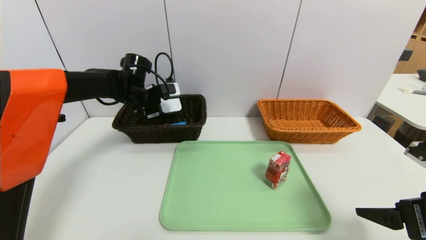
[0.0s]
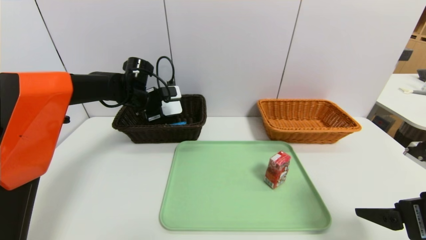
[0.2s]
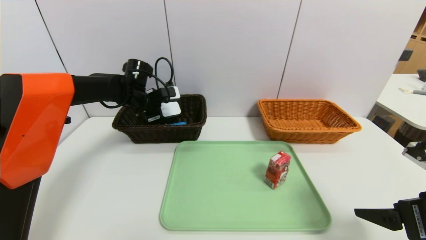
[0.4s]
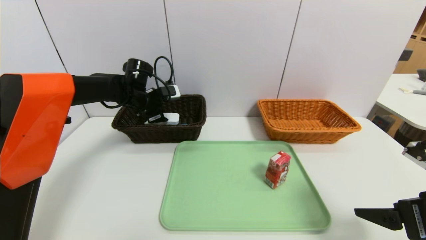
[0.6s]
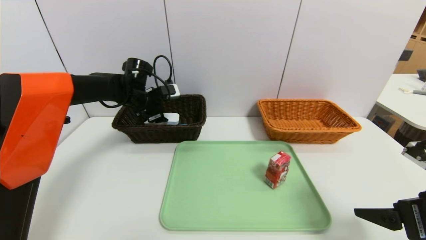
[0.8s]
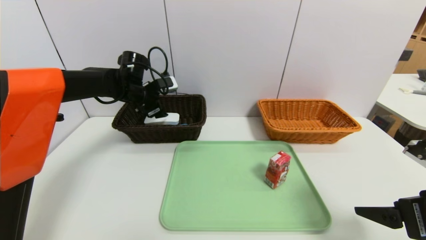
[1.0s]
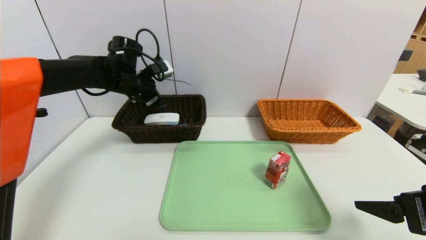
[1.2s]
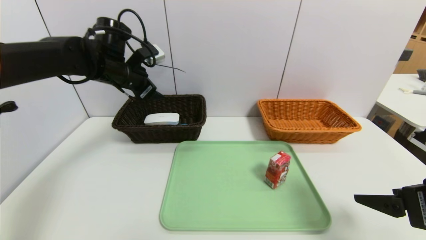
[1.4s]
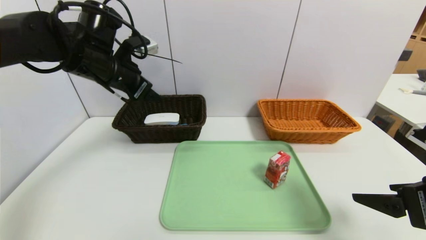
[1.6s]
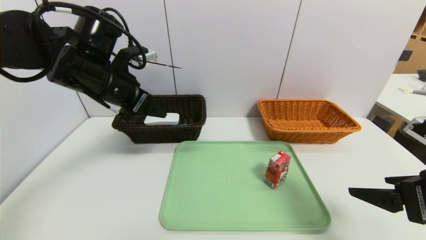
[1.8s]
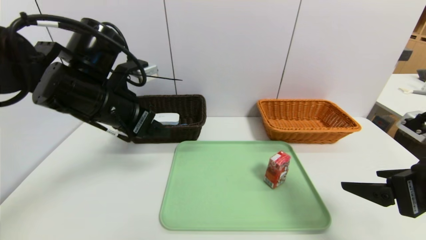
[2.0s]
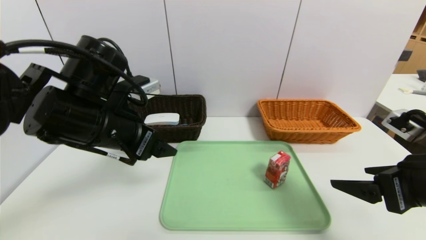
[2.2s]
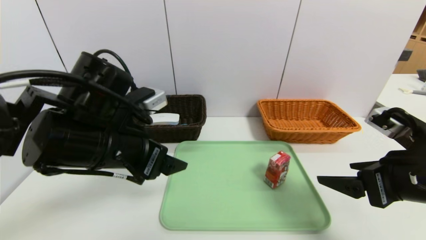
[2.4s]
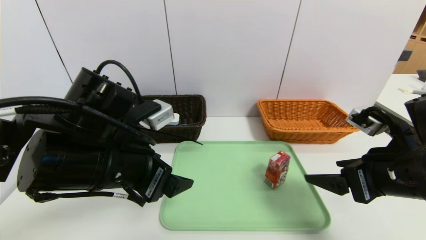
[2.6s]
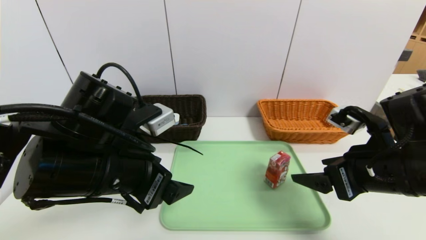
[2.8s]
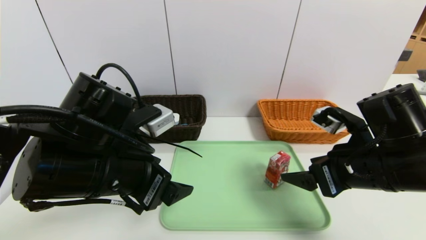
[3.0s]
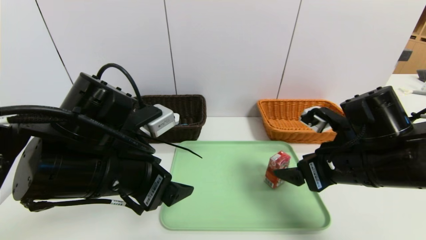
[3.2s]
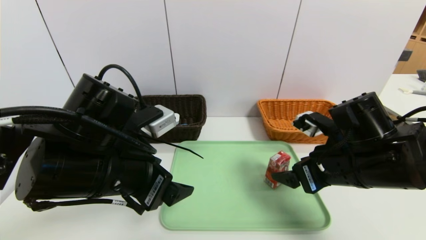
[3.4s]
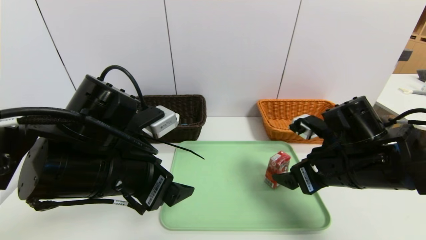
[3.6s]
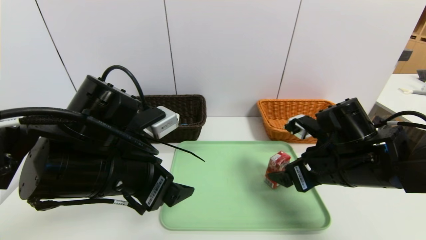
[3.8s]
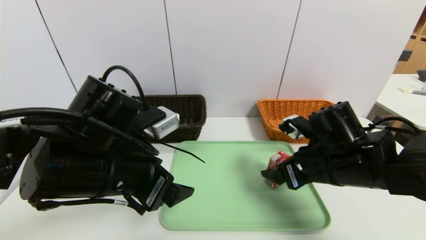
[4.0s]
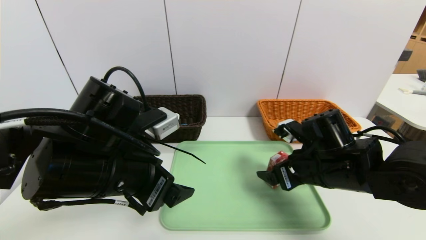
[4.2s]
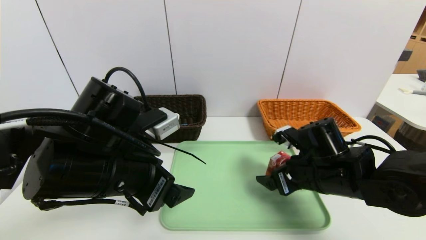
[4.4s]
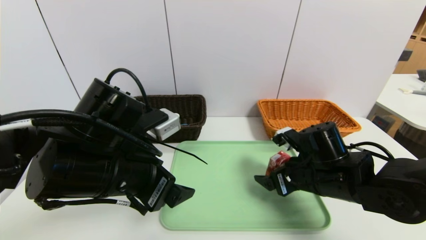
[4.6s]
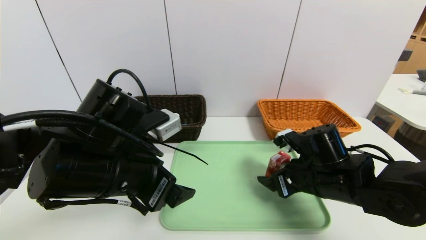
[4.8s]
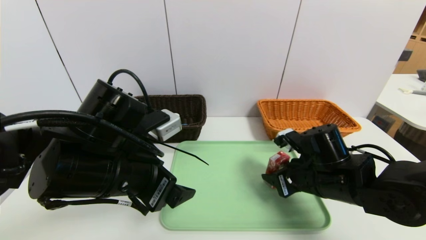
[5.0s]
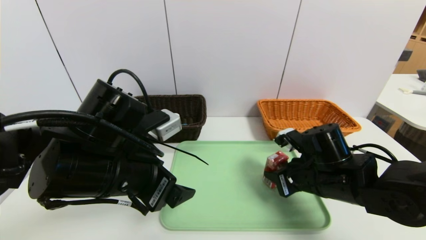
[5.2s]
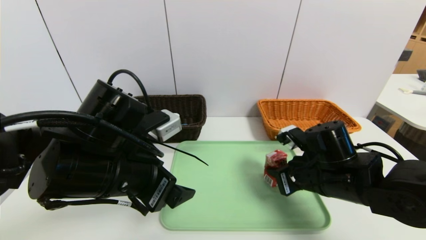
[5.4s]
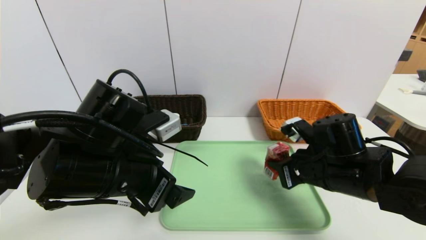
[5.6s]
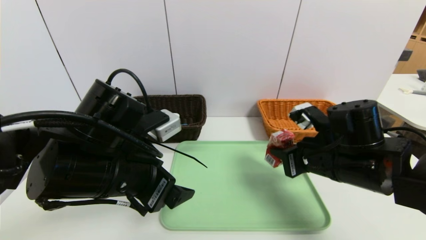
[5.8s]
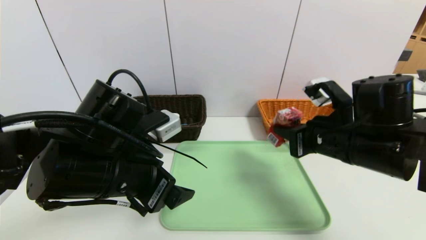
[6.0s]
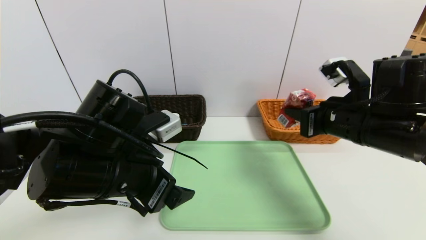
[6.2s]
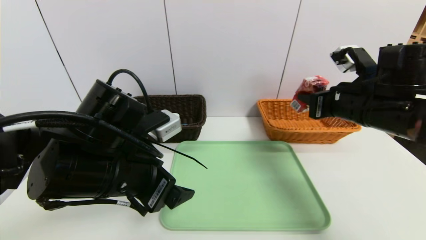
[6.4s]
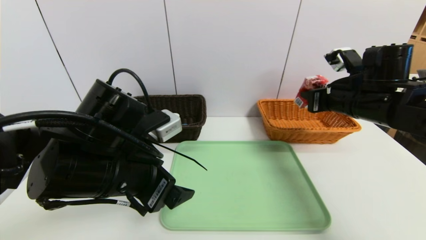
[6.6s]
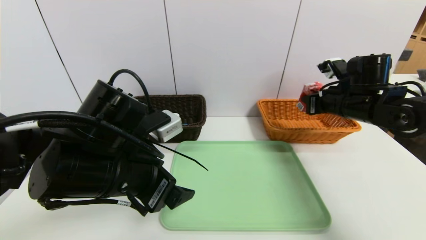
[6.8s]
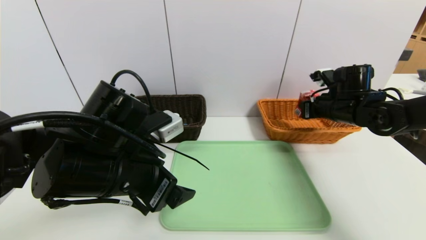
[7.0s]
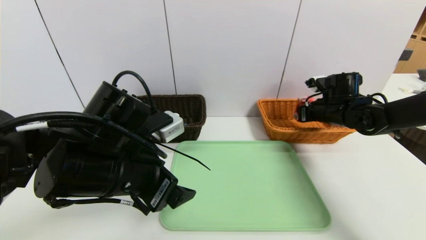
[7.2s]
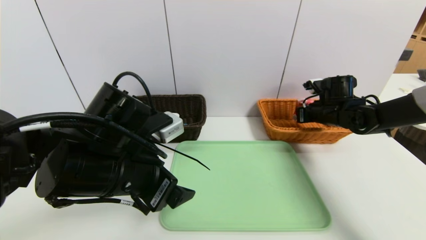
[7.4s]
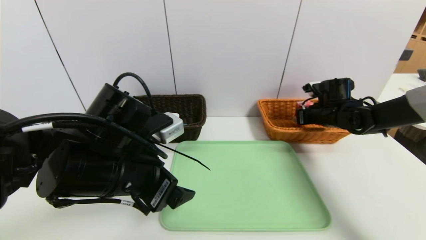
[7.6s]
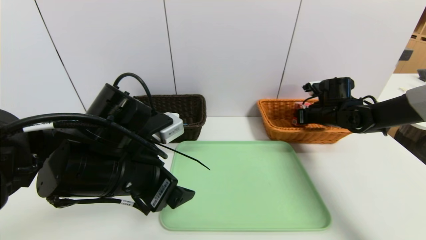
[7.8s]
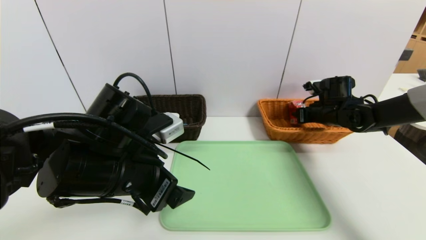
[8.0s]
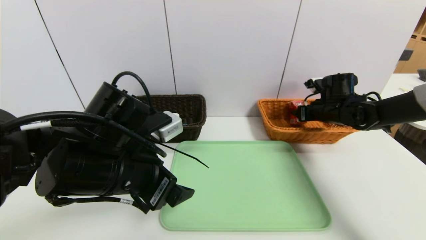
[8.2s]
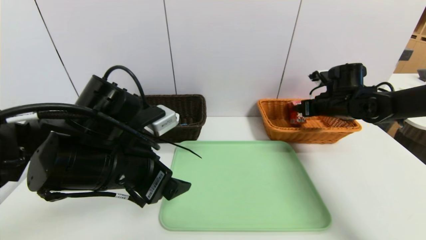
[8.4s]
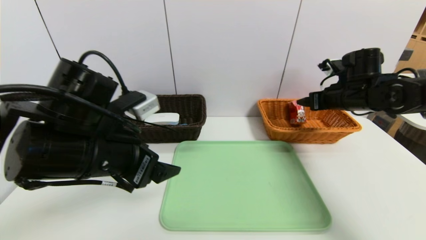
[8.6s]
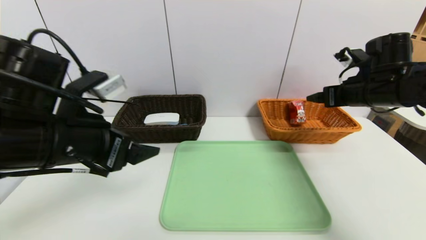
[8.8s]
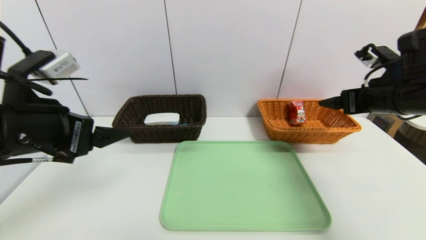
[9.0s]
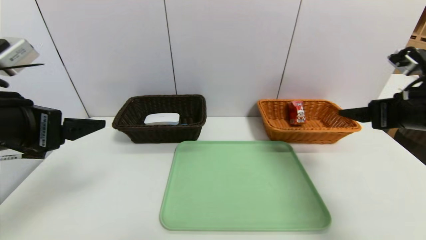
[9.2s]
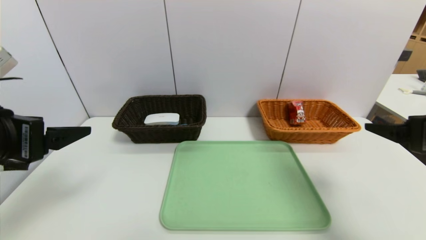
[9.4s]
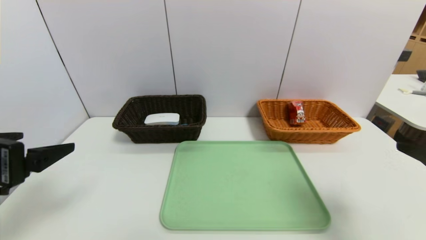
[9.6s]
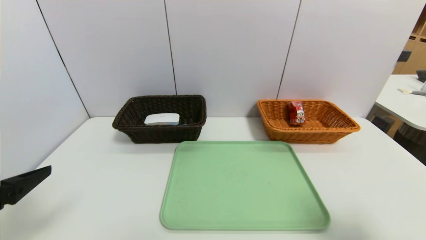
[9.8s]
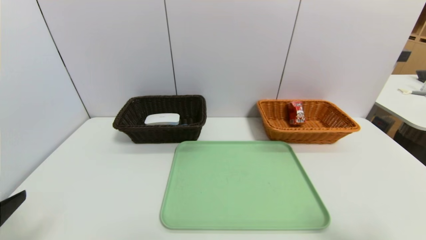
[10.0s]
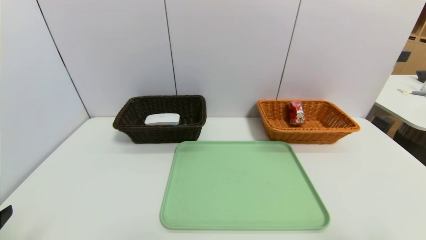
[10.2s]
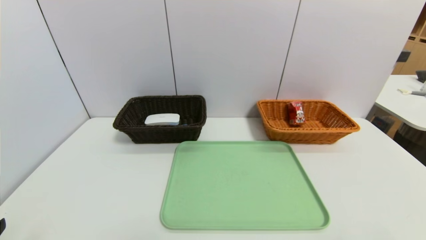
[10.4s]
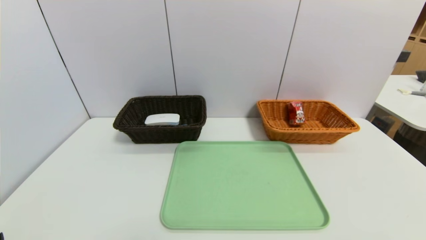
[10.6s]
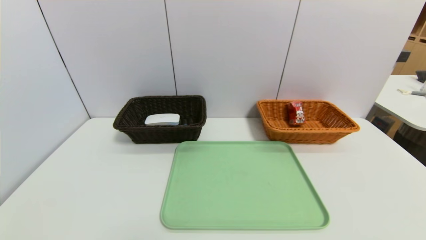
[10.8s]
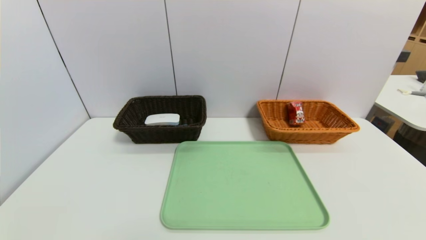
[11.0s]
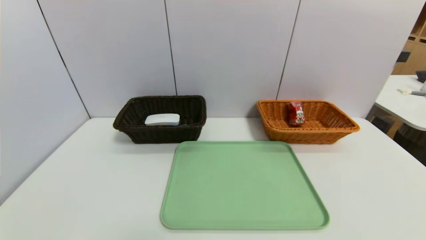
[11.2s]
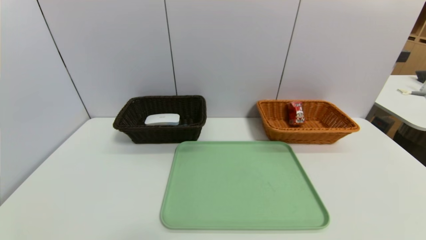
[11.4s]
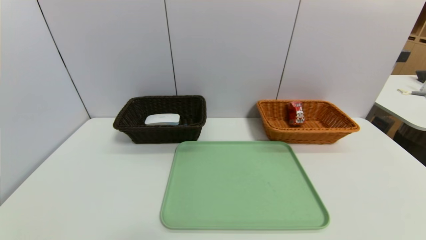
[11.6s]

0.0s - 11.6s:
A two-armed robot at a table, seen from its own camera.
Task of the whole recording: place the food in the right basket with the right gripper, and place the non food items in the left basket with the left gripper.
Step, 1.6s - 8.4s: Grasp the milk and put it in the right basket.
0.0s - 1.4s: The left gripper goes approximately 10 cm upward and backward, and opens up.
1.4s - 2.8s: The right gripper moves to the left and forward, some 10 cm; the left gripper is displaced backward by roughly 20 cm.
2.8s - 4.4s: The right gripper moves downward and forward, roughly 10 cm.
4.4s - 5.8s: The right gripper is displaced upward by some 5 cm, and closes.
5.8s - 7.2s: The right gripper shifts about 20 cm forward and to the right.
7.2s - 8.8s: The left gripper heads to the left, covering approximately 5 cm. Meanwhile the right gripper moves upward and backward, some 10 cm, and opens.
8.8s - 10.2s: The left gripper travels backward and to the left by approximately 20 cm, while the right gripper shifts roughly 35 cm backward.
10.2s - 11.6s: The right gripper moves downward and backward, about 10 cm.

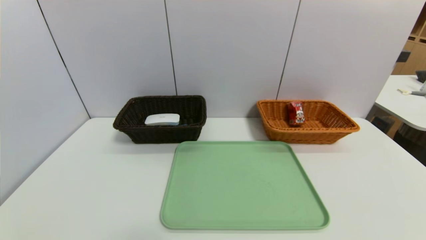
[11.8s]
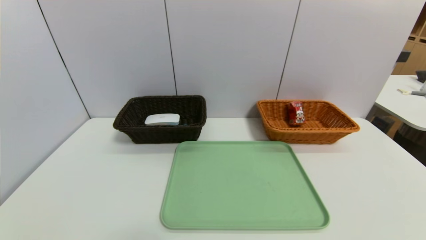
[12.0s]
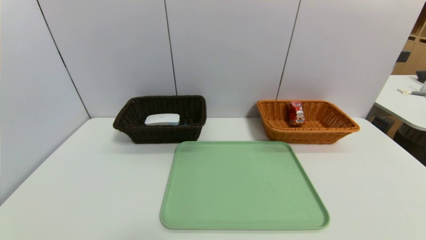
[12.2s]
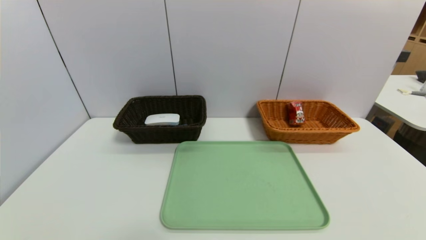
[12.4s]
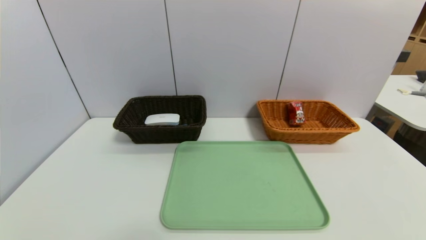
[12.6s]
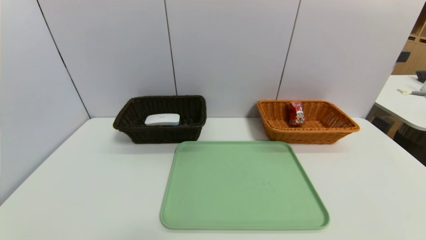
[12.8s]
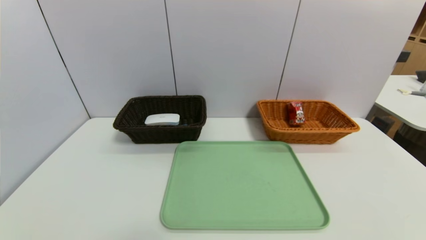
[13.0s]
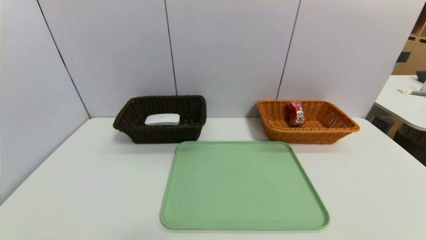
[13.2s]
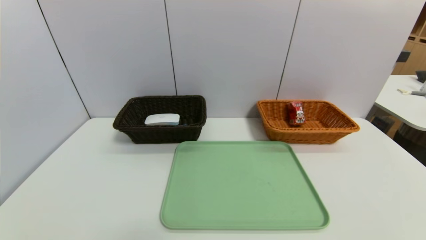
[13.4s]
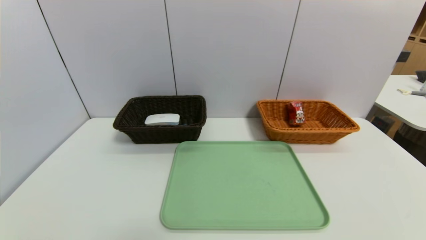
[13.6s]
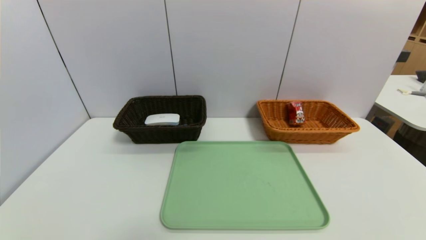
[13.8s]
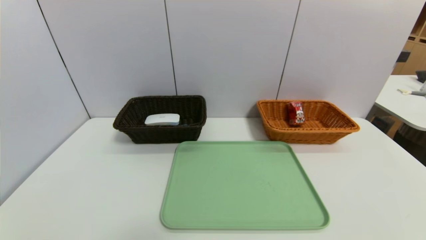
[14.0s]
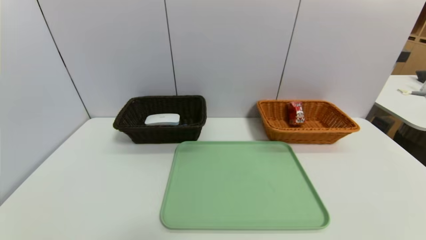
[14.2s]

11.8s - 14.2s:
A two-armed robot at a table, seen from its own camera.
Task of the whole recording: place the food in the right basket with the right gripper, and place the non food items in the left basket with the left gripper.
13.0s - 14.2s: Both grippers stay about where they are.

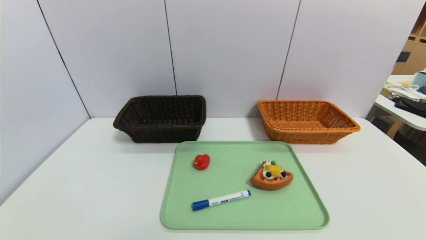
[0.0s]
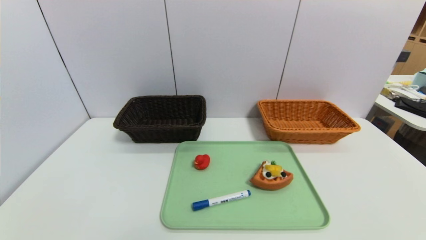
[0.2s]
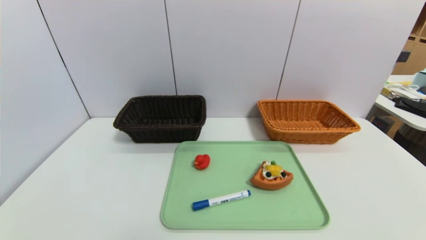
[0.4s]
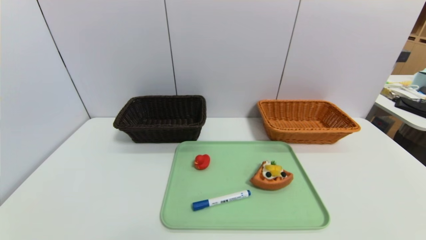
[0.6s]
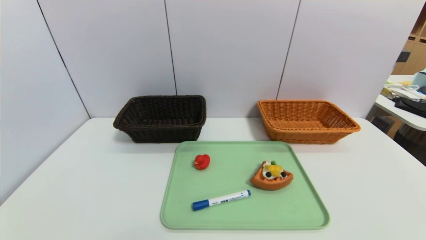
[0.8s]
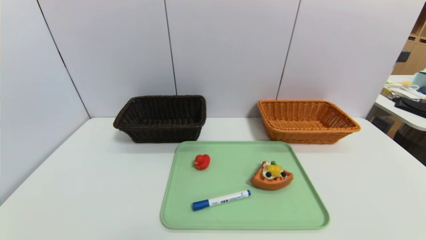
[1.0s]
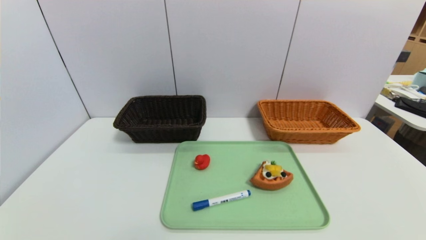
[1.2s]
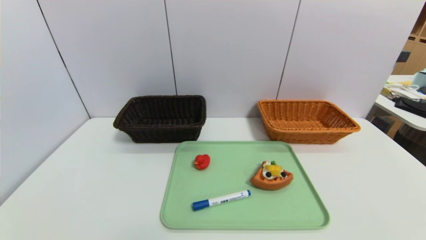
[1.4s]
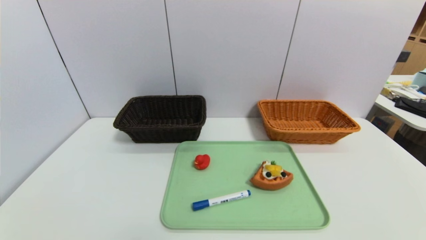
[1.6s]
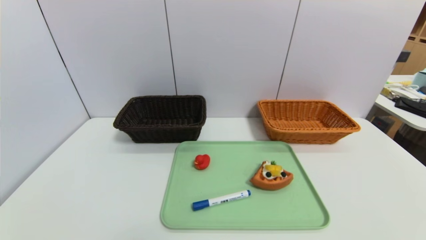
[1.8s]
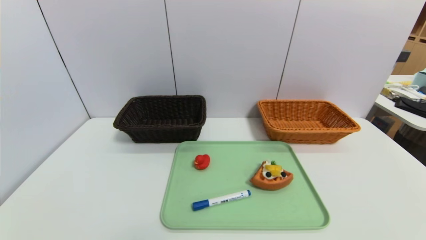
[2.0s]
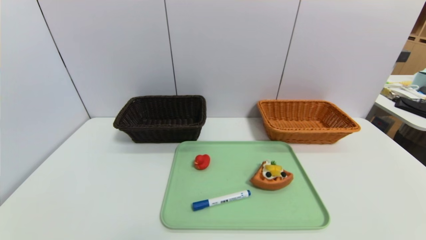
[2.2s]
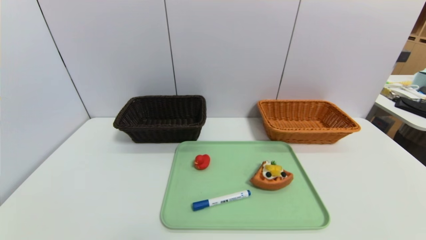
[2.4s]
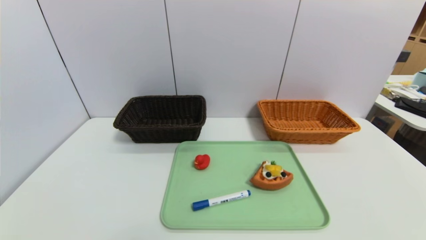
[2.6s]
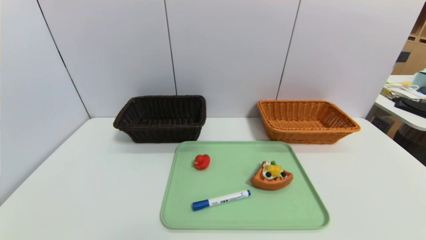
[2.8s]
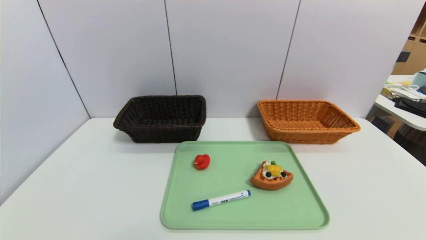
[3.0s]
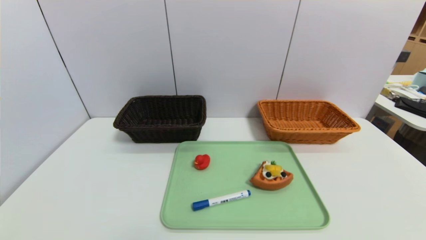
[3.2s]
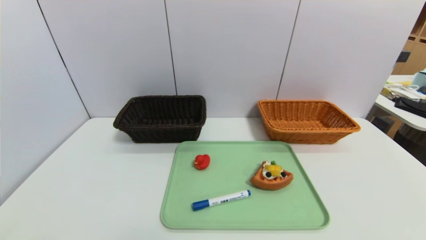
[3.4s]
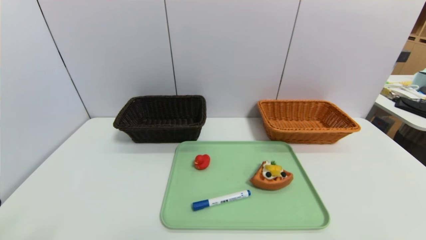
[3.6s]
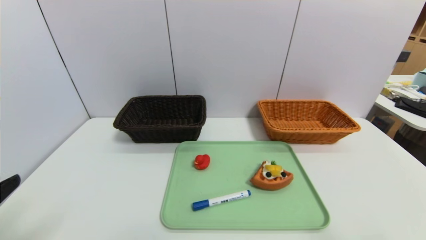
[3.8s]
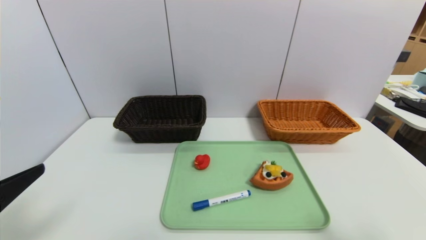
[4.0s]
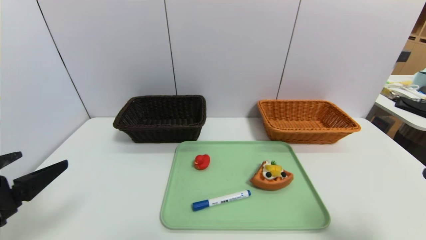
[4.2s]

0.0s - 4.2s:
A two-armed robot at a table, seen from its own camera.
Task of the whole recording: place the food in the right basket with the right gripper, and place the non food items in the left basket with the left gripper.
0.0s - 1.4s: The two grippers keep their place.
2.8s - 4.2s: Both grippers travel together forward and upward, approximately 15 cm.
